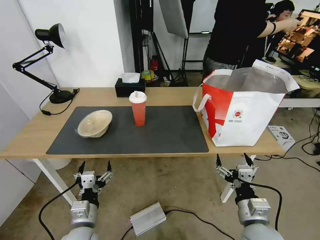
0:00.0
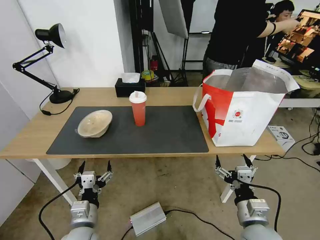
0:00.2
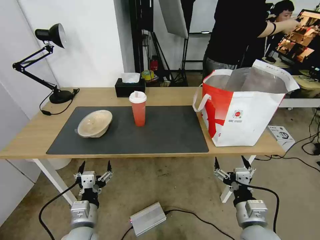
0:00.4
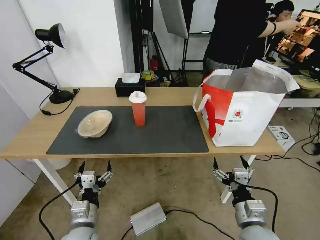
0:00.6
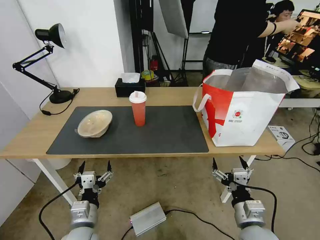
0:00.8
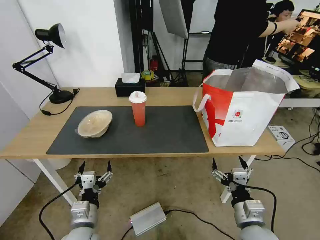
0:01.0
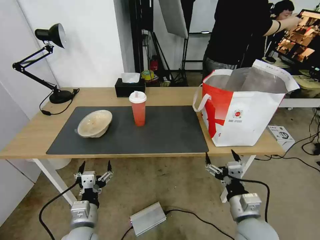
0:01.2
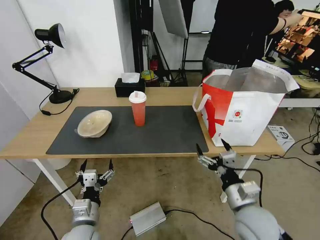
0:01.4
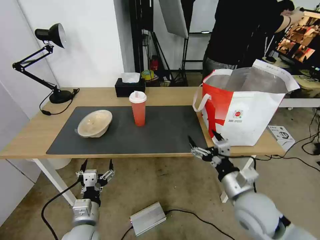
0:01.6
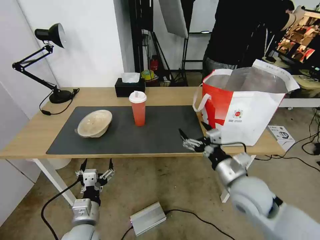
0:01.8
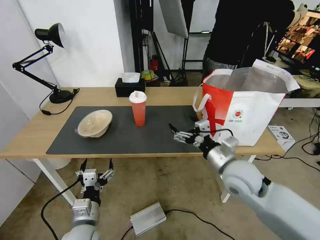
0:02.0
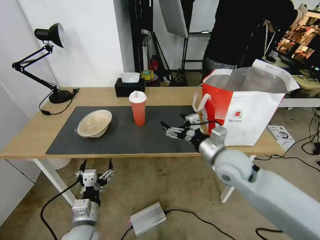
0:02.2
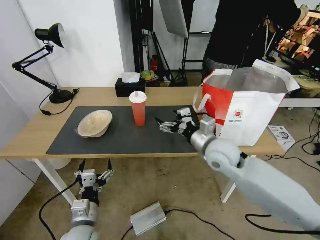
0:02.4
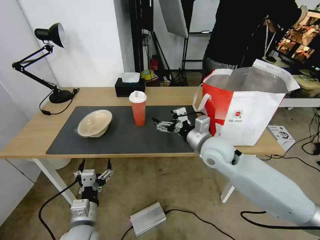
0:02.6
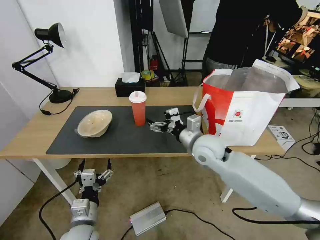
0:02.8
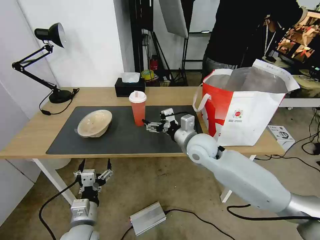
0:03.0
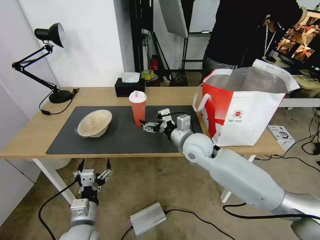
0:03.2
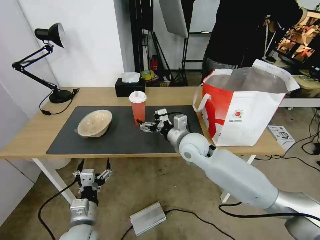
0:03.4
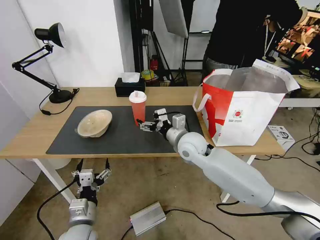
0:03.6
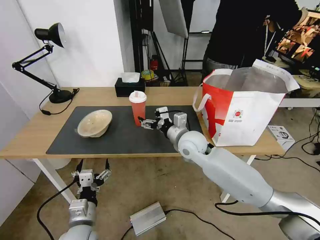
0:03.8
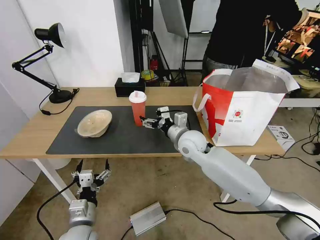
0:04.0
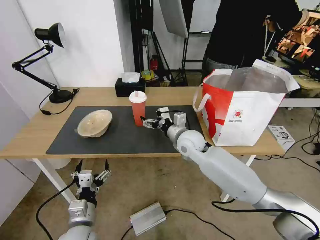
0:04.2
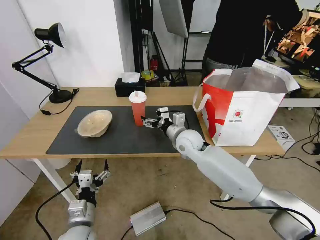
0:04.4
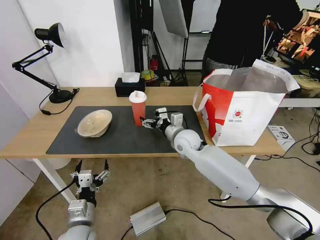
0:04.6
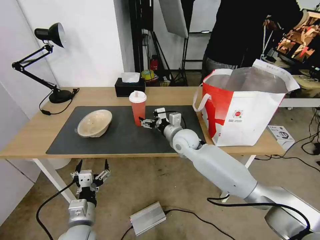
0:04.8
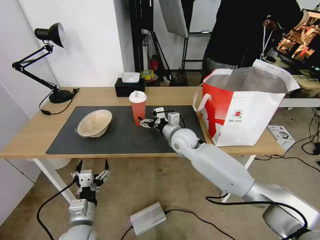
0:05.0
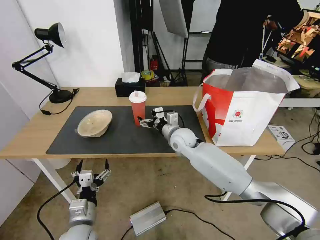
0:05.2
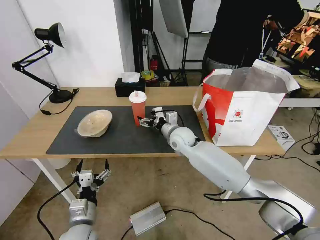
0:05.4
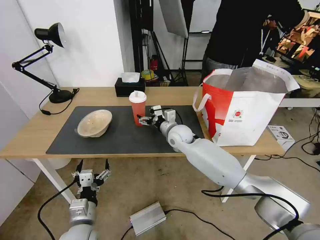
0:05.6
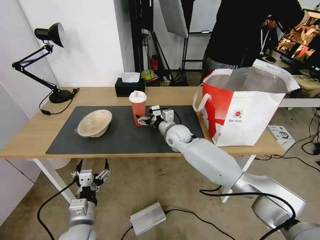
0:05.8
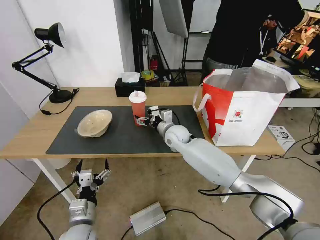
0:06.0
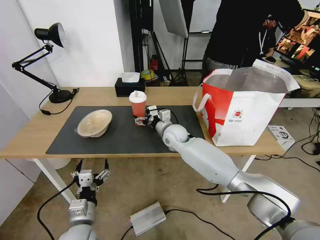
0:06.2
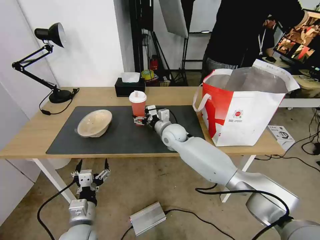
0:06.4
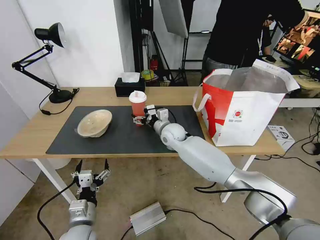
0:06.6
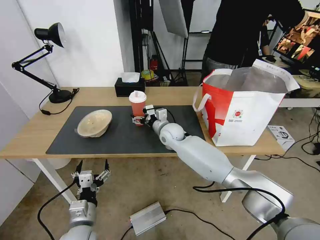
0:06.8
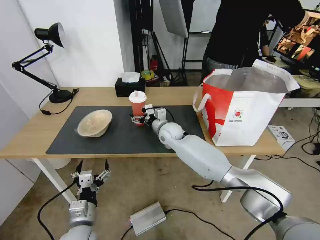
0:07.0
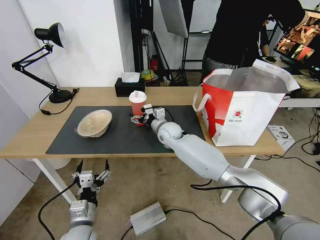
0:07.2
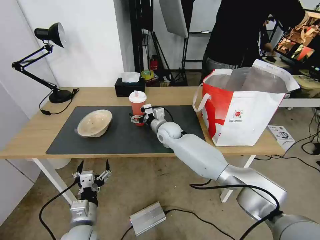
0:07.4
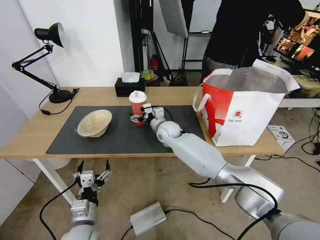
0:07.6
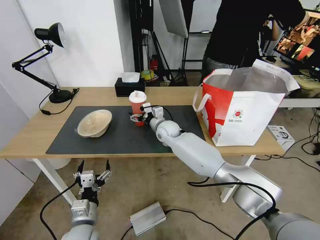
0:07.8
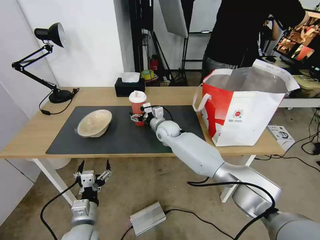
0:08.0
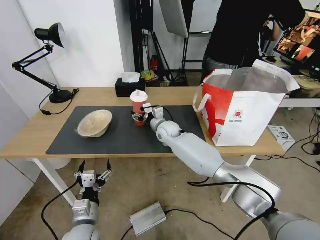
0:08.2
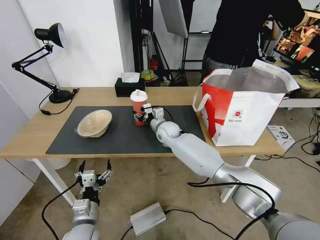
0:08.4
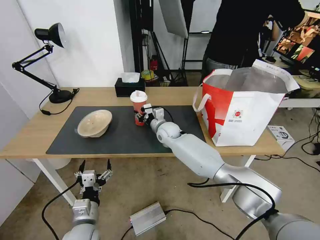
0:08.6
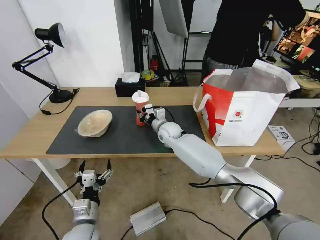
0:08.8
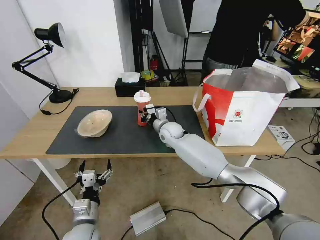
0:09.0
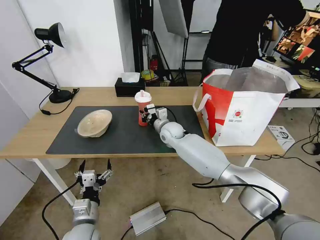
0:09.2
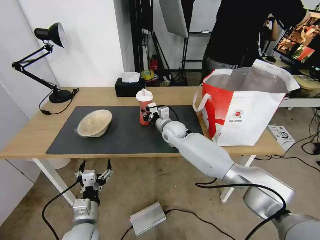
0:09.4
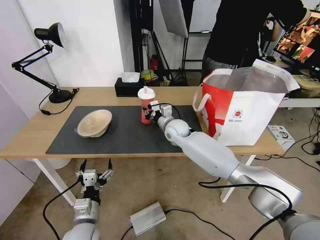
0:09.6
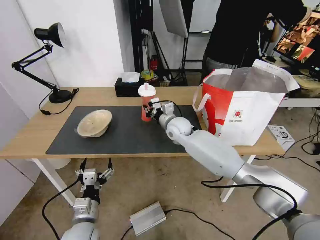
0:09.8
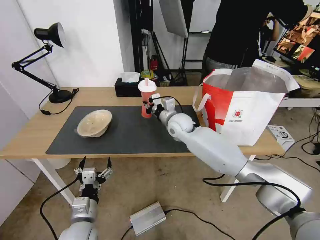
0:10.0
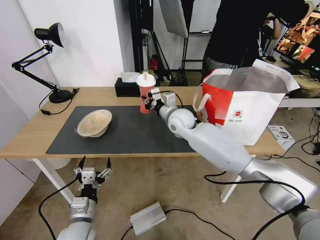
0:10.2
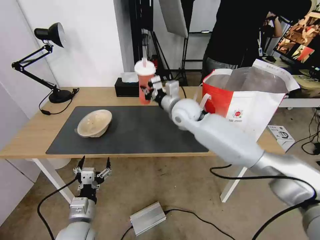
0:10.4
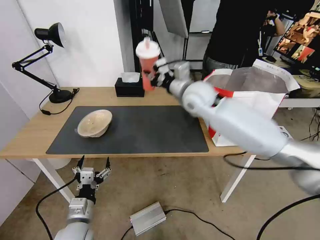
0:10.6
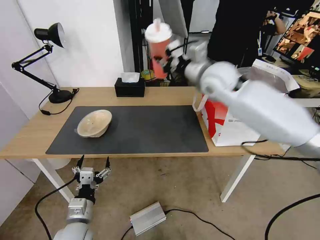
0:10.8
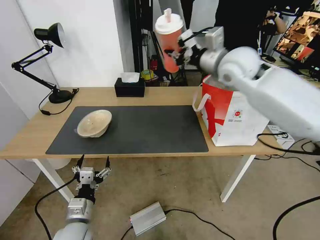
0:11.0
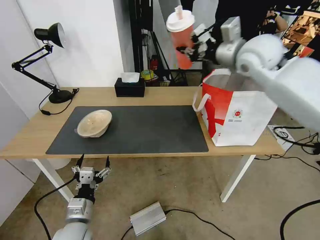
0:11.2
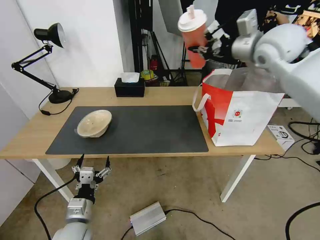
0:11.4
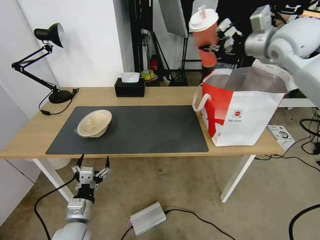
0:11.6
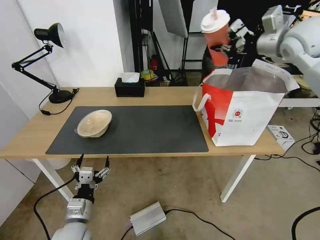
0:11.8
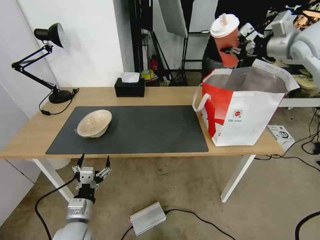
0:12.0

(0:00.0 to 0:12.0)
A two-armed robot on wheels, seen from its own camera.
Task of the whole recording: Pick up the trash from the table and place it into the takeout bag.
0:00.0 - 0:01.6: The right gripper moves forward and upward, about 10 cm.
0:01.6 - 0:03.0: The right gripper travels forward and to the left by approximately 20 cm.
0:03.0 - 0:04.4: The right gripper is displaced forward by roughly 5 cm.
0:04.4 - 0:06.0: The right gripper travels forward by roughly 5 cm.
0:06.0 - 0:07.6: There are only small adjustments of the grippers.
0:07.6 - 0:09.0: The right gripper closes up.
0:09.0 - 0:10.4: The right gripper goes roughly 15 cm upward.
0:10.4 - 0:12.0: The right gripper is displaced to the right and upward by roughly 35 cm.

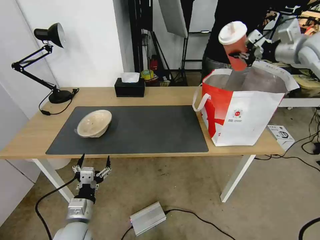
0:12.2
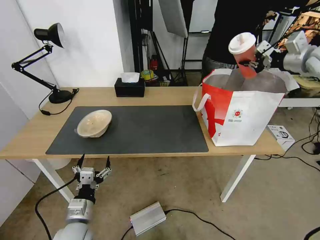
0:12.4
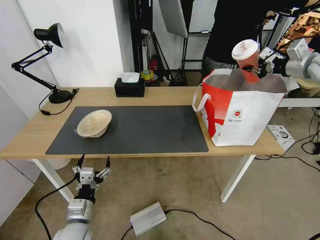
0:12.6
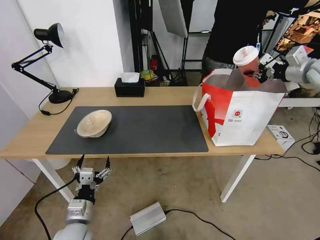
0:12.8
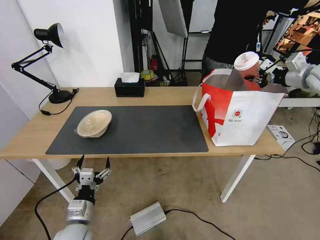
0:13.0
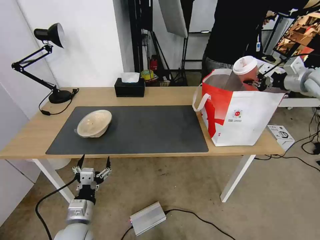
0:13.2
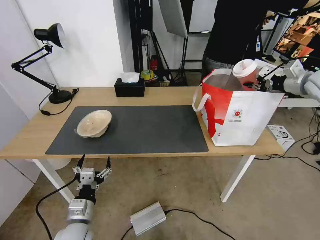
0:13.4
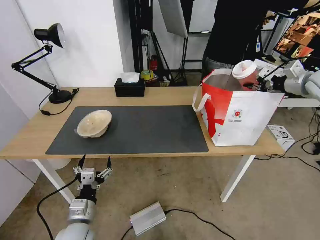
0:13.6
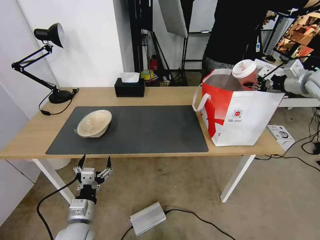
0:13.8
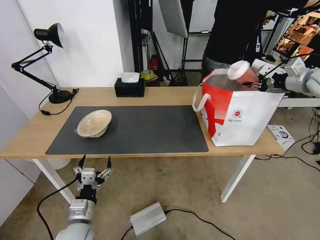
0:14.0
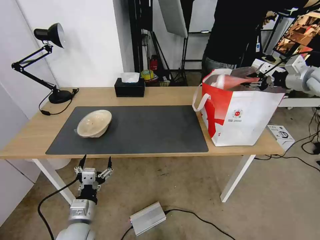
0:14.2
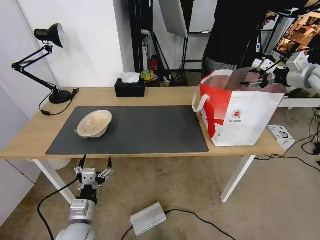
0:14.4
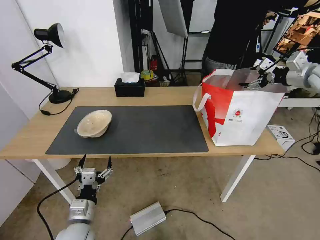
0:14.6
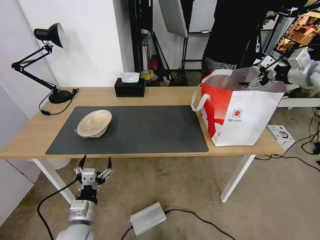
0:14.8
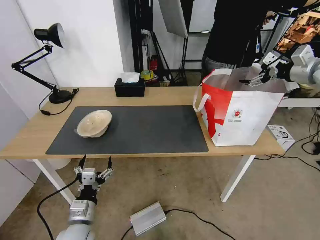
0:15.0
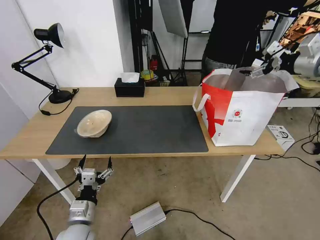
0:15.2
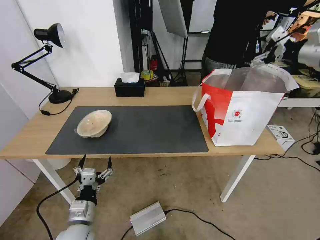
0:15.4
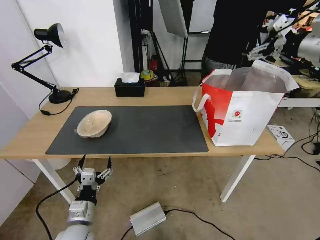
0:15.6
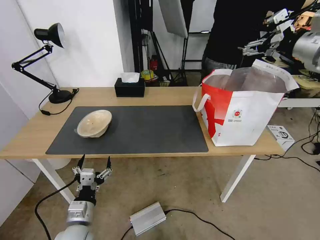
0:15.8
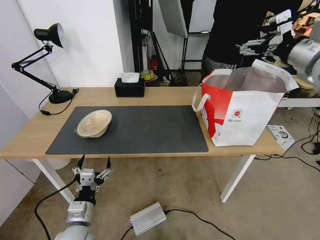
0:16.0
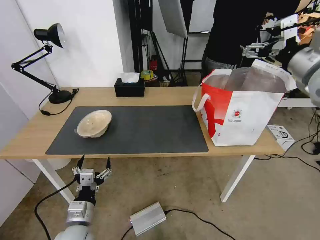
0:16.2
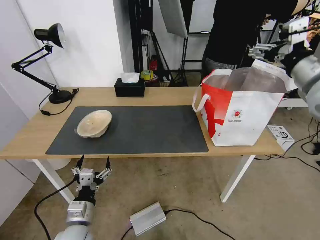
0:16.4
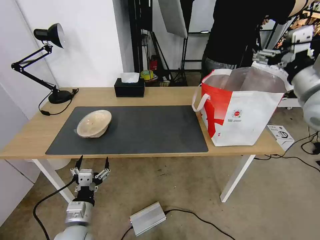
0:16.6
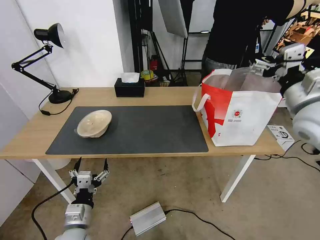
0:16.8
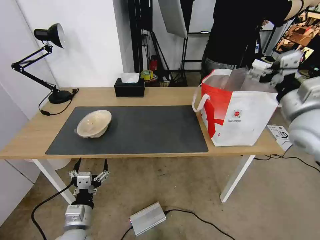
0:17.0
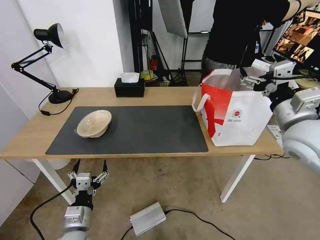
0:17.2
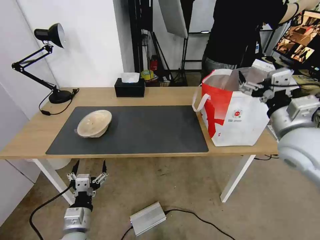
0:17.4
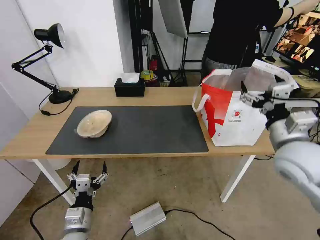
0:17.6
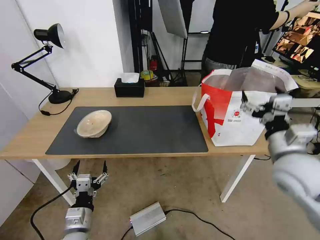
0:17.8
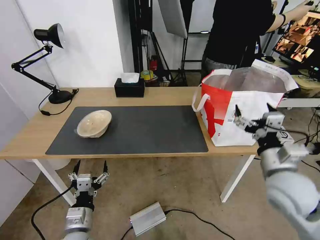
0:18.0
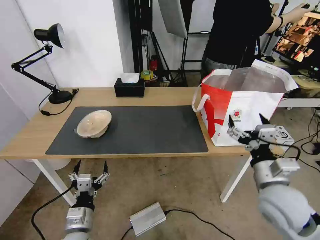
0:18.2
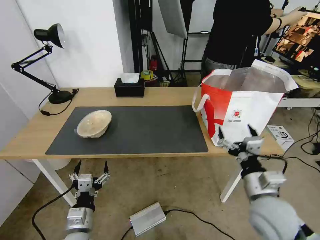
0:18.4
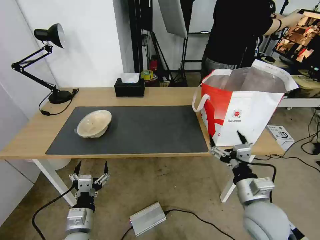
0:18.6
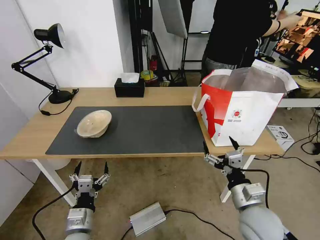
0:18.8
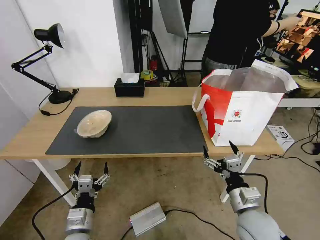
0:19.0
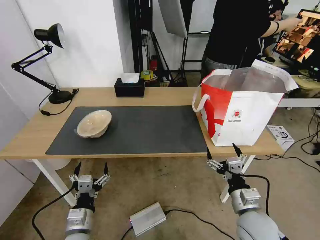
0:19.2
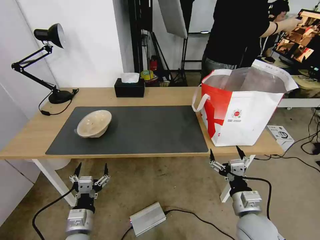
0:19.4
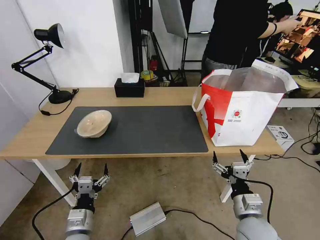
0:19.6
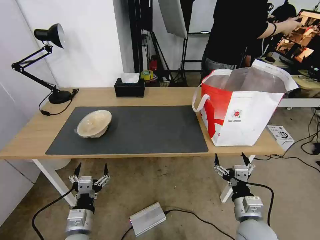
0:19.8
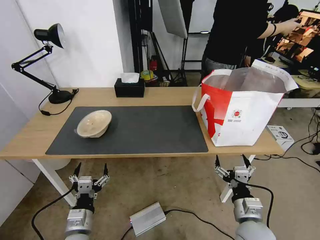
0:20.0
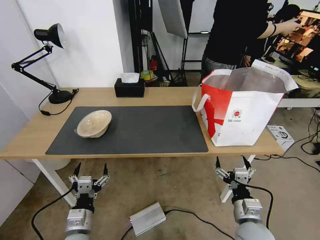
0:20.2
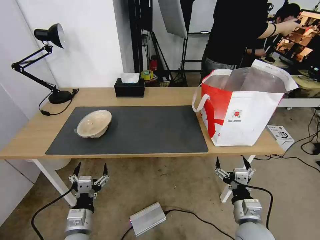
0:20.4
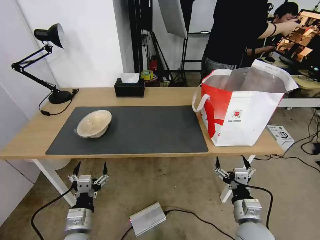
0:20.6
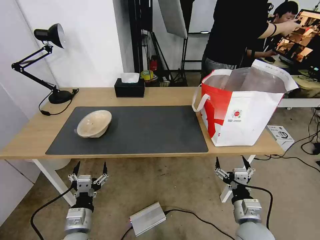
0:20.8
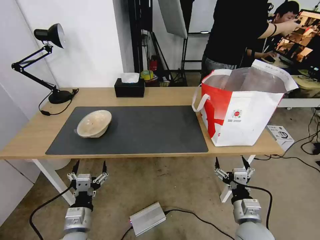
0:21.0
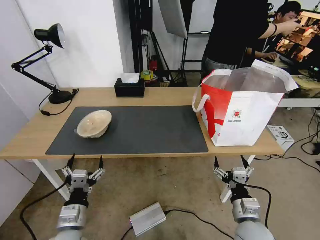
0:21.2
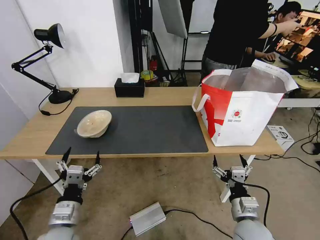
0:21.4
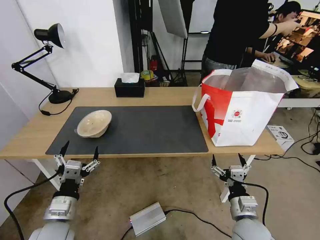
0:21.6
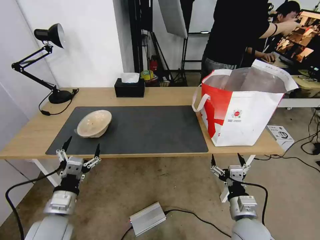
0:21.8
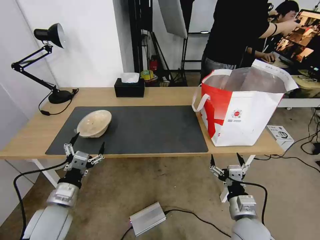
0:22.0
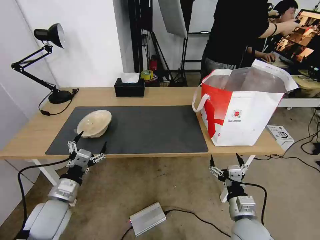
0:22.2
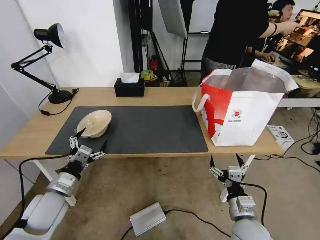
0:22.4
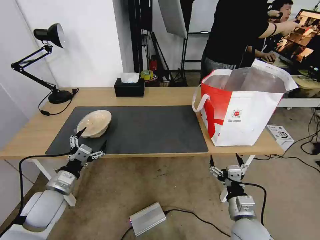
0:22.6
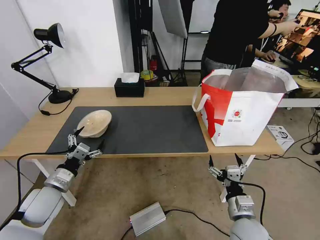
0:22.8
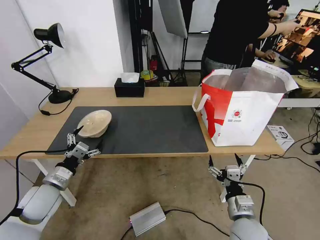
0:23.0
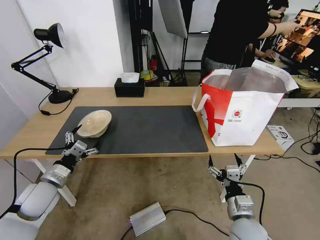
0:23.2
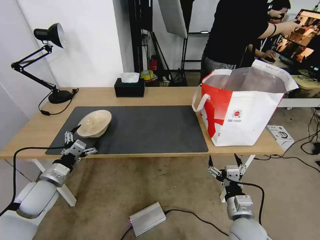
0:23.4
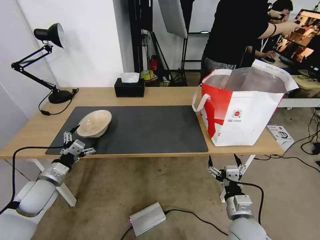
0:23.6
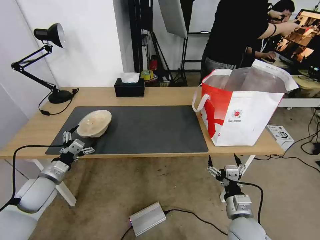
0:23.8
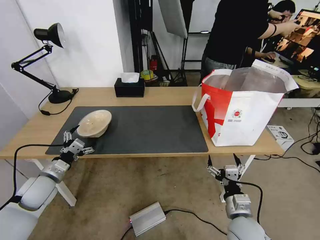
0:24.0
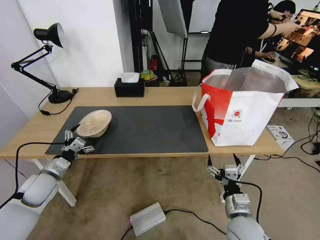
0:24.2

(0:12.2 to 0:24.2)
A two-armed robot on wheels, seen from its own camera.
Task of the whole recording: Pick up the trash from the table and place it into the takeout bag.
0:12.2 - 0:13.8: The right gripper shifts some 10 cm downward and to the right.
0:13.8 - 0:15.2: The right gripper is displaced upward by approximately 5 cm, and opens.
0:15.2 - 0:16.6: The right gripper is displaced backward and to the left by about 20 cm.
0:16.6 - 0:18.2: The right gripper goes approximately 25 cm downward and backward.
0:18.2 - 0:19.8: The right gripper travels downward by about 15 cm.
0:19.8 - 0:21.2: The grippers make only small movements.
0:21.2 - 0:22.6: The left gripper goes about 15 cm forward and to the left.
0:22.6 - 0:24.2: The left gripper is displaced forward and to the left by roughly 10 cm.
